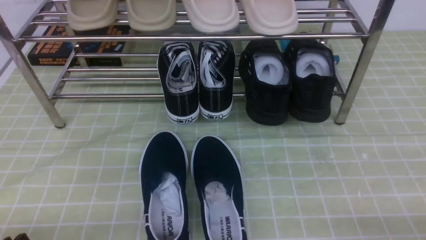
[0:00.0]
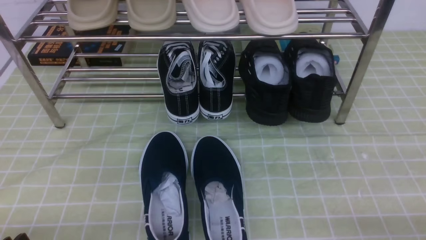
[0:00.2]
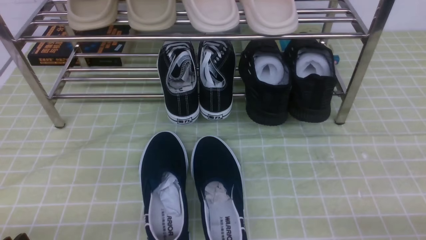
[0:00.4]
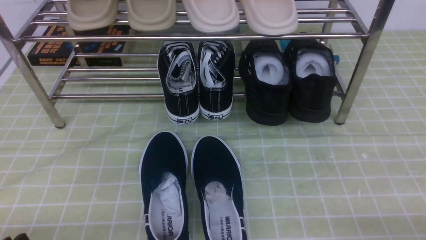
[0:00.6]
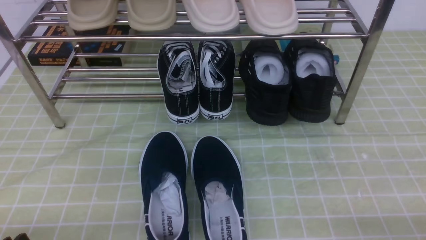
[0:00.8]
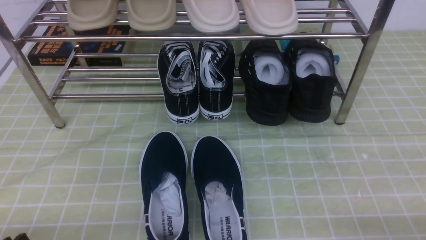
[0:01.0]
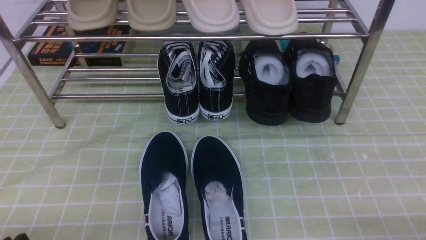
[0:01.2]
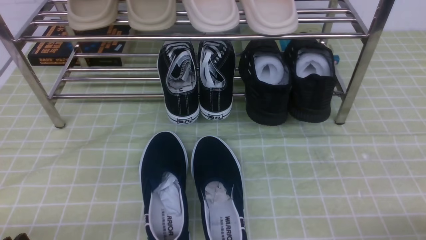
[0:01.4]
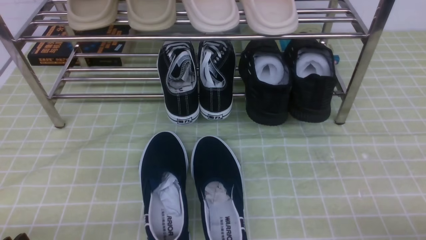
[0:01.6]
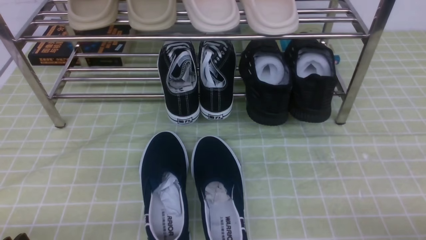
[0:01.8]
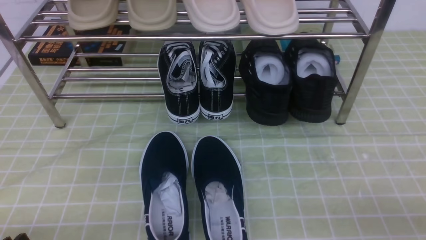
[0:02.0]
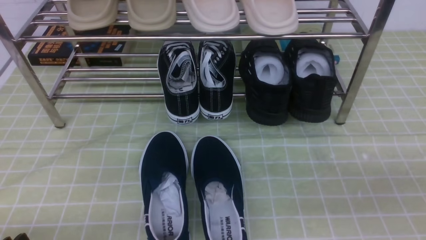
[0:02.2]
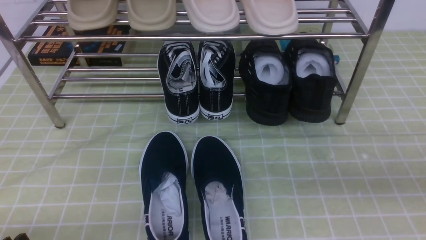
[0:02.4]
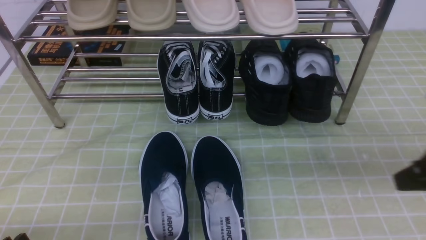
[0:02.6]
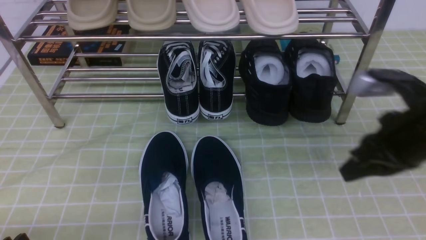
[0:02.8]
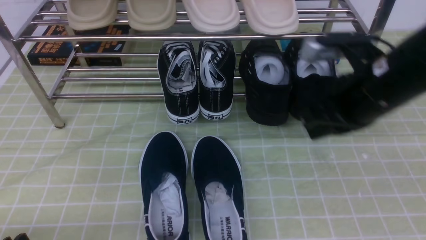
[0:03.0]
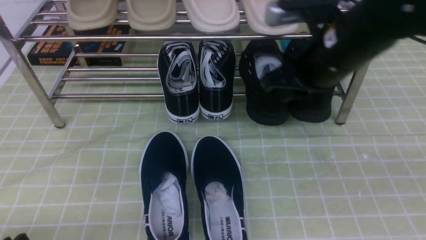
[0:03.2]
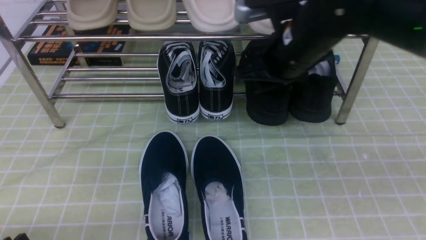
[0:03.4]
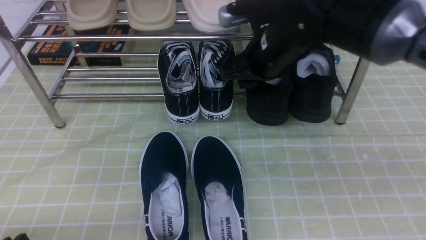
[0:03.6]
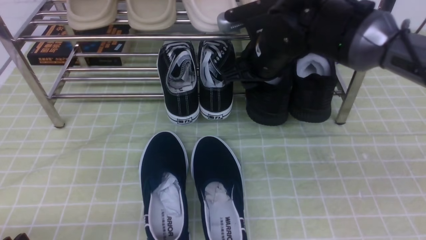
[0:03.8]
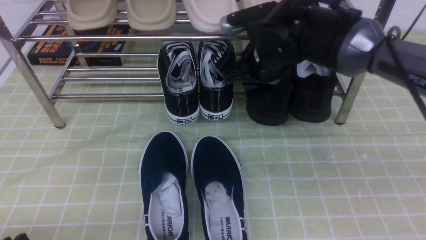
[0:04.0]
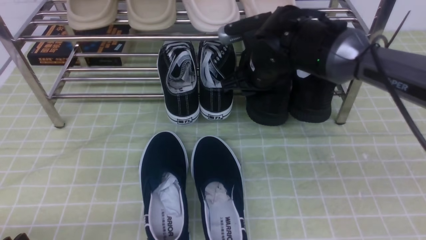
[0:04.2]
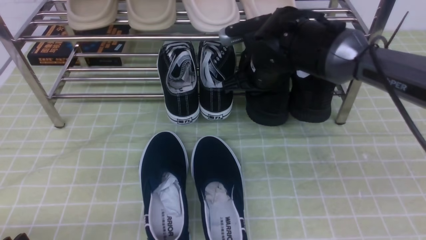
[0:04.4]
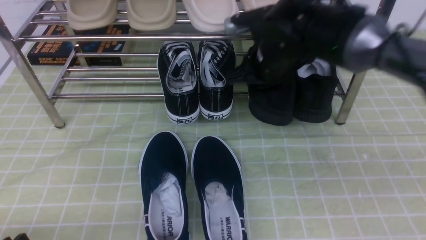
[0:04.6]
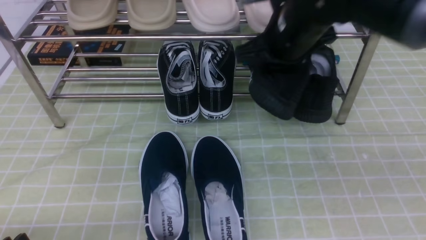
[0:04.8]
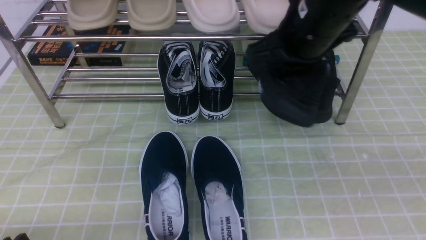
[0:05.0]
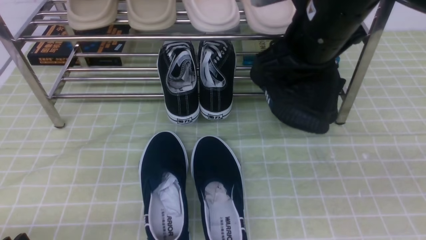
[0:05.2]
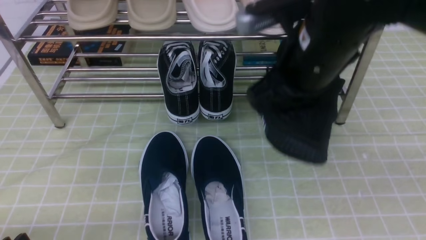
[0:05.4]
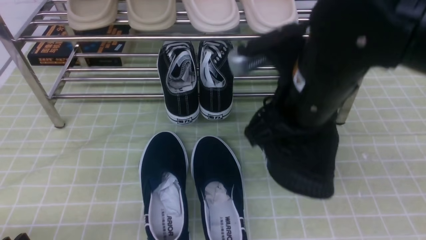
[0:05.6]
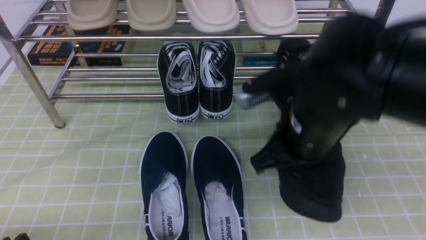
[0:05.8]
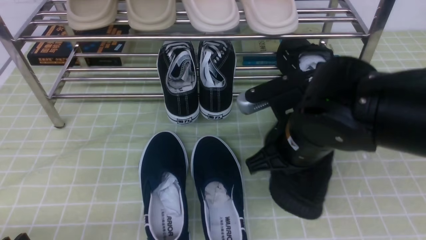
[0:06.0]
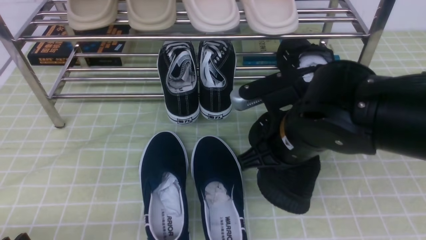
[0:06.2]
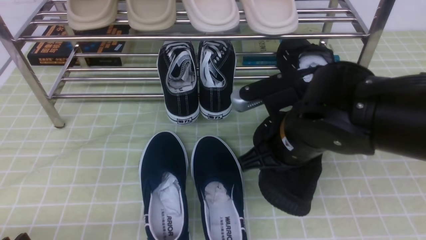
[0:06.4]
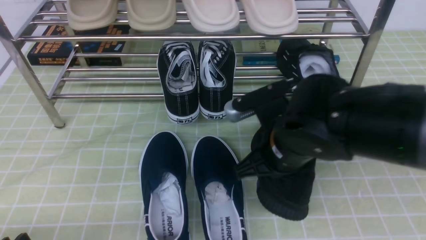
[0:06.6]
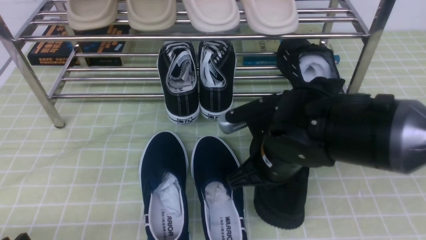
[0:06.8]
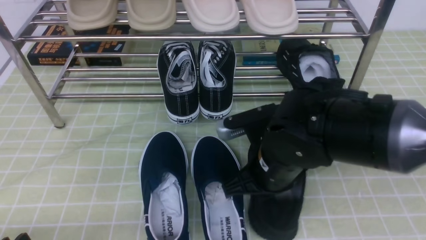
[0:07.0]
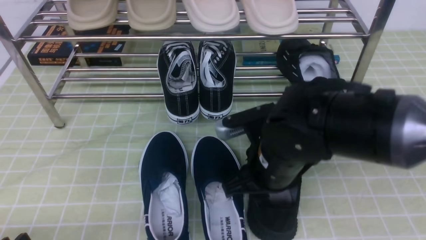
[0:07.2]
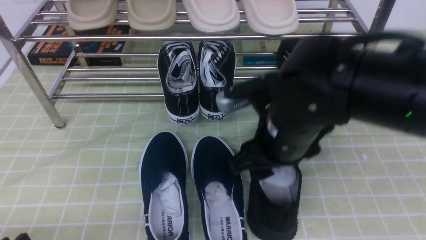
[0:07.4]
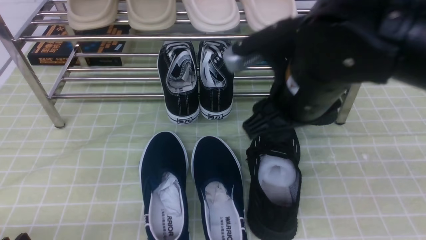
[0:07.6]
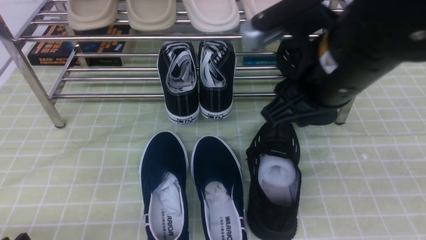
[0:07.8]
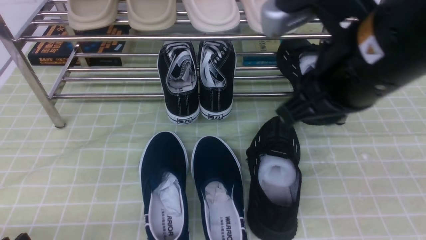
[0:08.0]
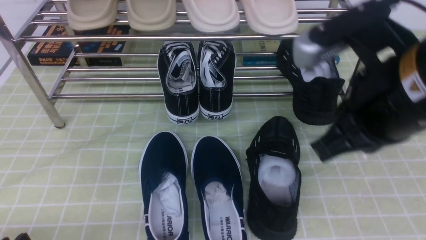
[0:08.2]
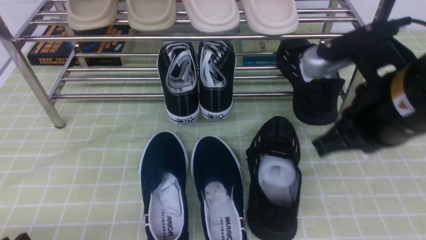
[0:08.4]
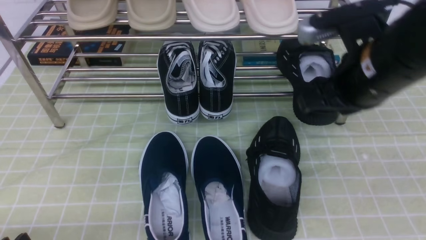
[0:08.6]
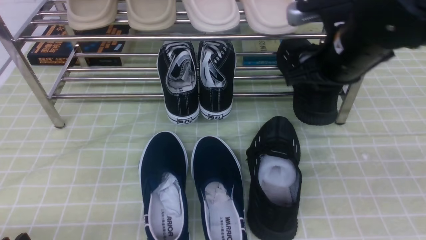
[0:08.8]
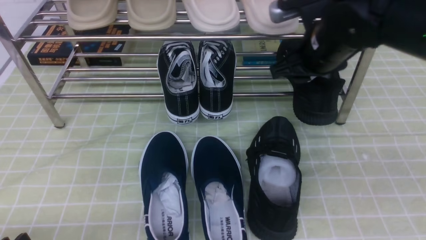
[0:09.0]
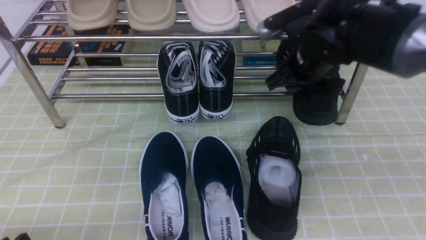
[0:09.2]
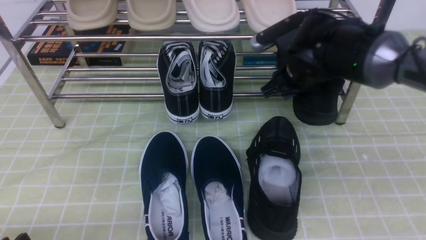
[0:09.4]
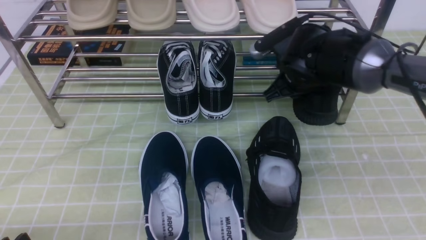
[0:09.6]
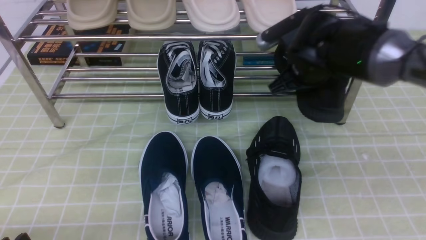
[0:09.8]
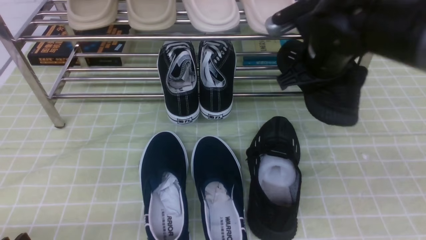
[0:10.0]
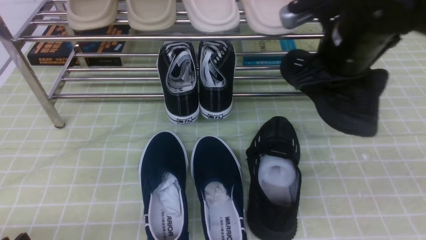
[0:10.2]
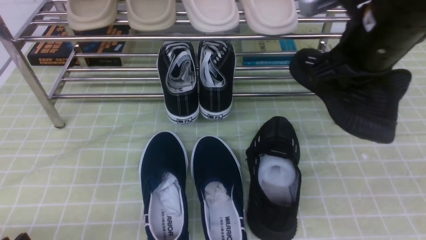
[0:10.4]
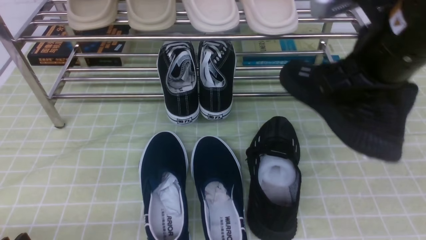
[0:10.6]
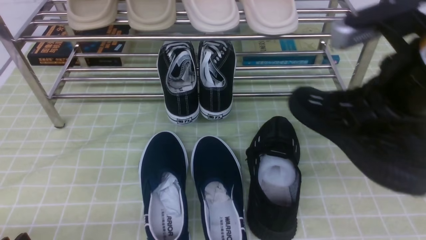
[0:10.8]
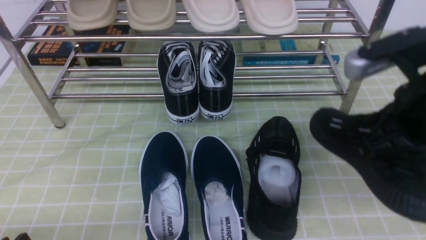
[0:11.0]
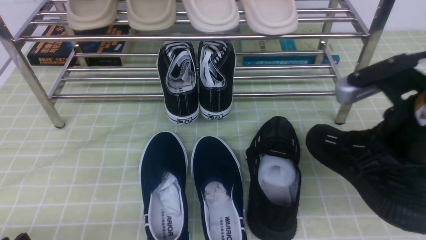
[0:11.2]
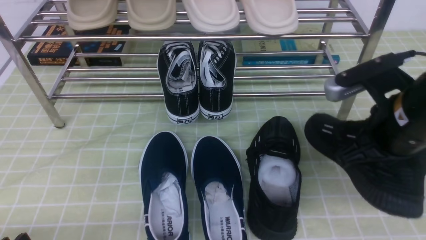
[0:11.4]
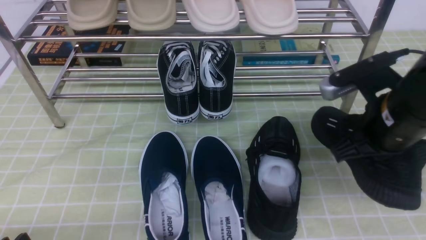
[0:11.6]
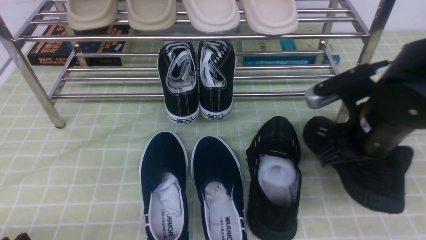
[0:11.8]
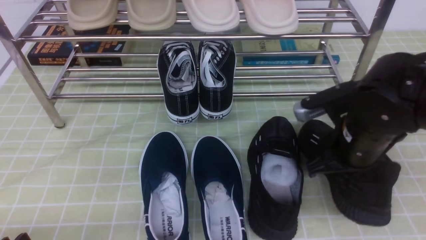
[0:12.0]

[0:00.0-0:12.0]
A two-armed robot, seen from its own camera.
Step, 0.0 to 4.4 s: use the right arm to clamp a shoe on the right side of the shoe rack.
Step, 4.8 to 7.6 s: use the right arm to take out the clamped shoe from the shoe rack and put it down.
Step, 7.8 to 9.6 s: use the right arm to clamp a shoe on the right side of the shoe rack.
1.6 to 3.0 s: The right gripper moves forward, upward and to the left, approximately 30 cm, and closes up.
3.0 to 4.4 s: The right gripper heads forward, to the left and downward, covering roughly 15 cm, and opens, then closes again.
4.4 to 6.0 s: The right gripper travels backward by some 15 cm, while the left gripper opens its fingers.
6.0 to 7.6 s: The right gripper shifts about 5 cm upward, and opens its fingers; the left gripper opens up.
7.6 to 9.0 s: The right gripper shifts roughly 15 cm forward and to the right, and closes, then reopens.
9.0 to 10.4 s: The right gripper is displaced backward and upward by some 10 cm, and closes up.
10.4 to 12.0 s: The right gripper travels downward by about 15 cm.

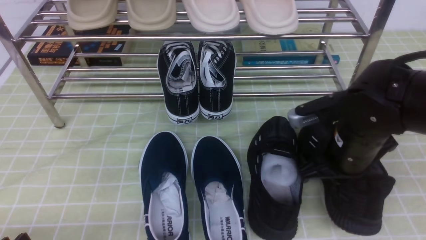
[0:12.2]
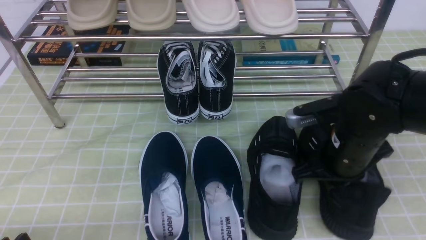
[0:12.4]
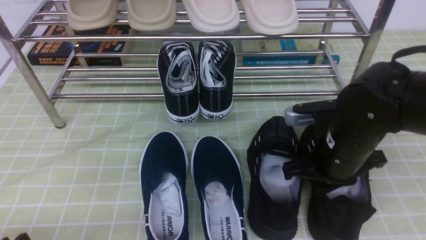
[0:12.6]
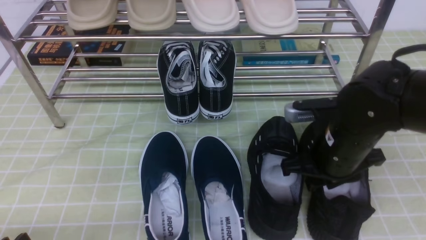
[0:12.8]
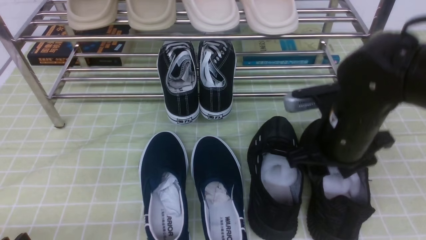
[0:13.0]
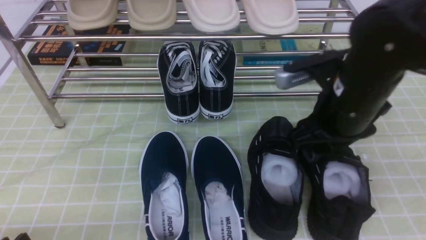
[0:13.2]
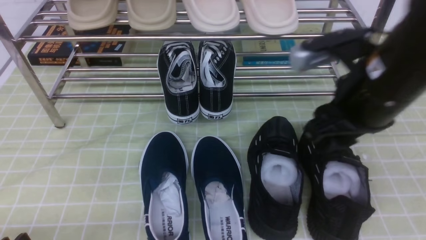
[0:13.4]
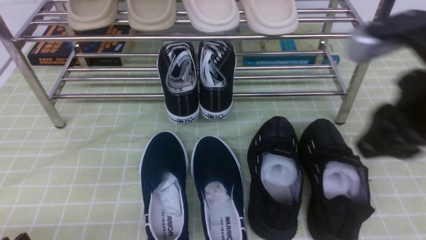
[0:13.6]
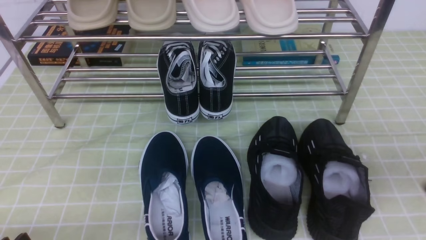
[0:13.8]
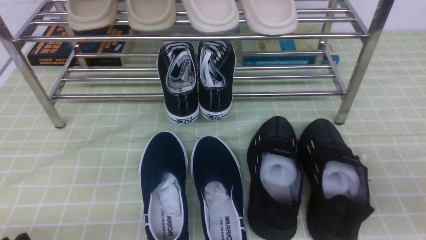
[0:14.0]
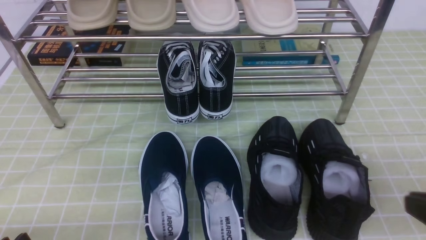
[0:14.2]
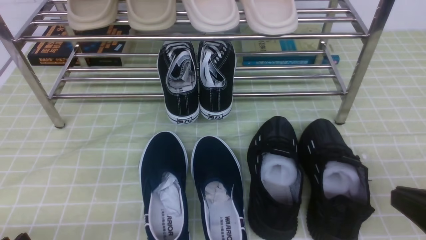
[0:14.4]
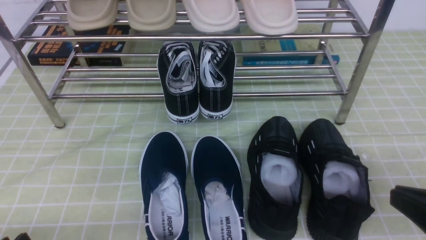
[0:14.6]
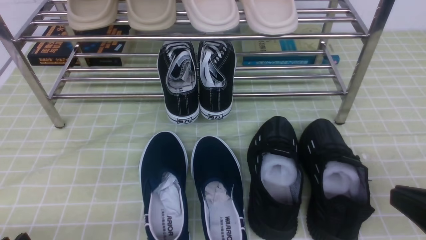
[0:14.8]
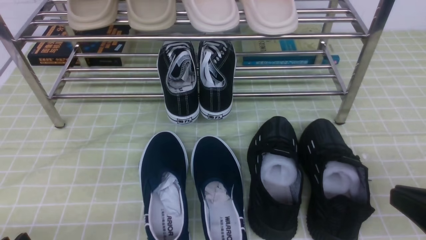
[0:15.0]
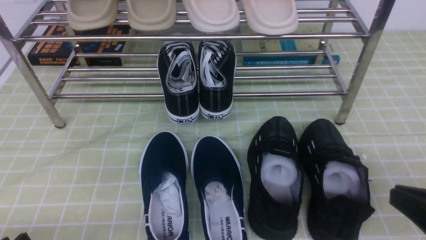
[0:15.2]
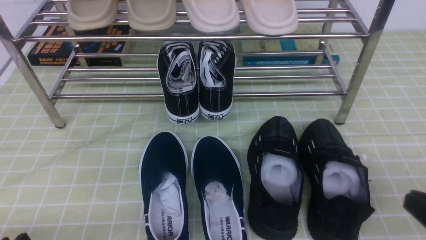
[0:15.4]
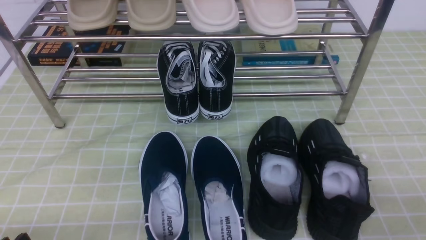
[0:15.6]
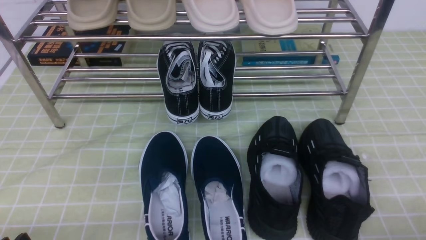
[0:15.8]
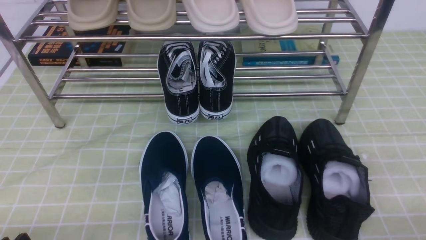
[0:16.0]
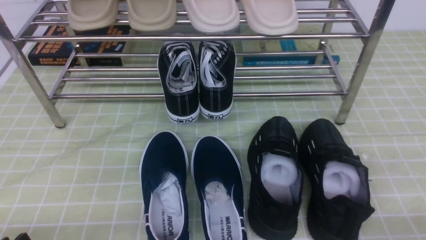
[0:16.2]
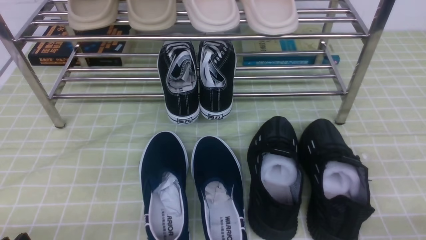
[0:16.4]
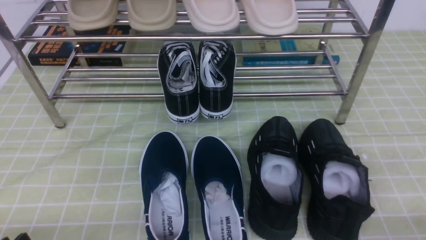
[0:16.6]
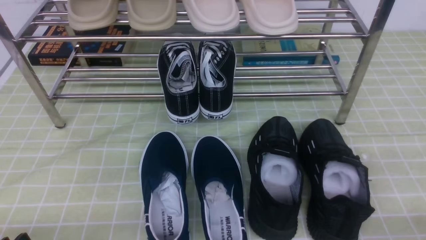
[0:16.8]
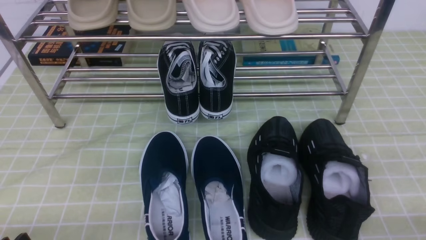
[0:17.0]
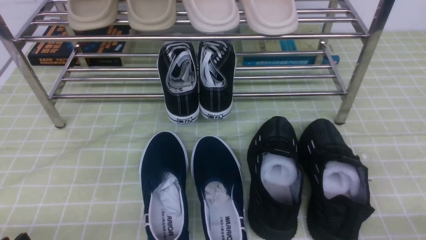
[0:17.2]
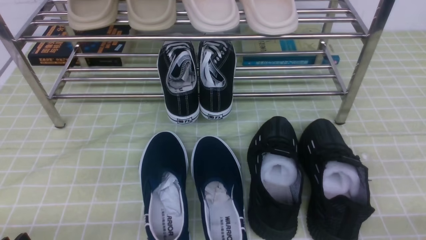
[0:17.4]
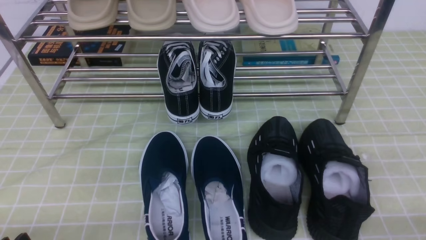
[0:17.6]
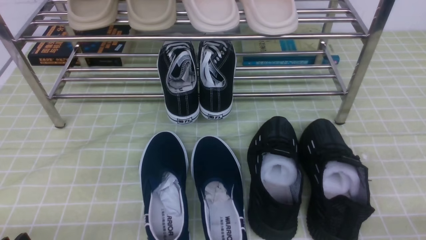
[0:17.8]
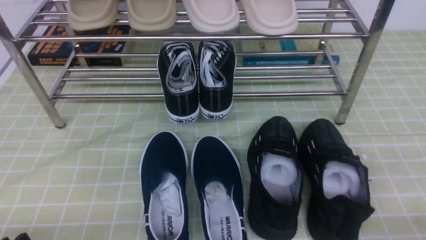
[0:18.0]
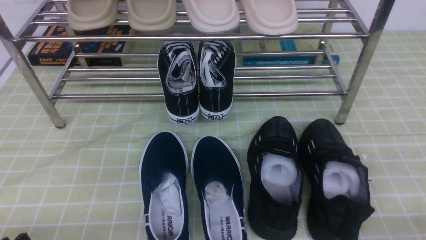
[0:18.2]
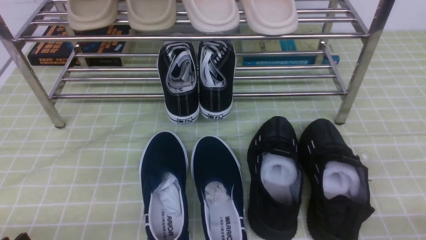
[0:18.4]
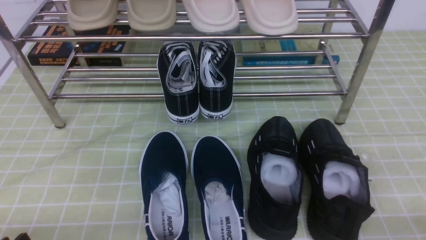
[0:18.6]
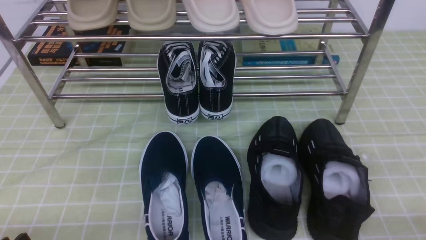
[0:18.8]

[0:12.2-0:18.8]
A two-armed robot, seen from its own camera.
12.2 to 13.8 s: The right gripper travels backward, upward and to the right by about 20 cm, and opens and closes again.
13.8 to 15.4 s: The right gripper shifts approximately 10 cm downward.
15.4 to 17.2 s: The right gripper shifts approximately 5 cm downward.
17.2 to 18.8 s: Both grippers stay put.
